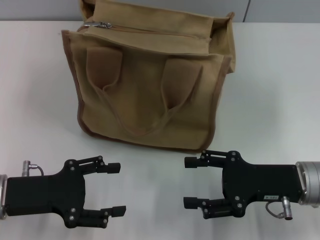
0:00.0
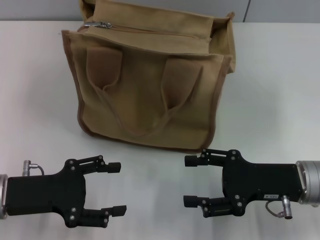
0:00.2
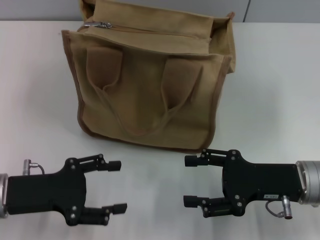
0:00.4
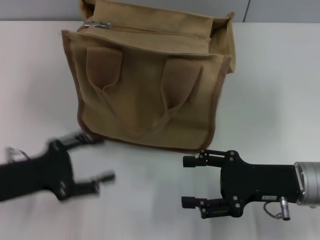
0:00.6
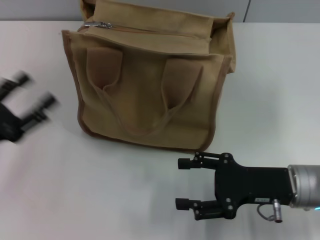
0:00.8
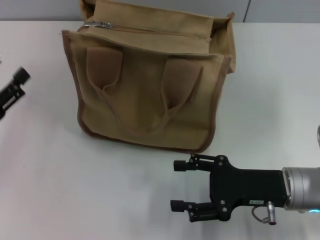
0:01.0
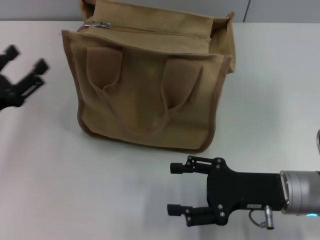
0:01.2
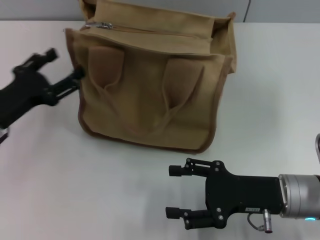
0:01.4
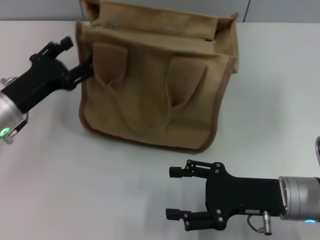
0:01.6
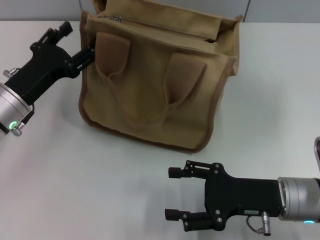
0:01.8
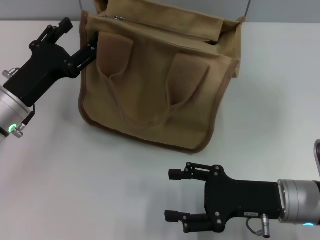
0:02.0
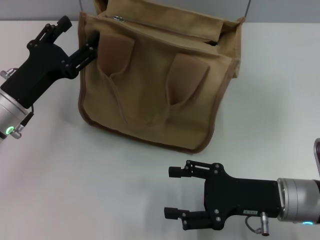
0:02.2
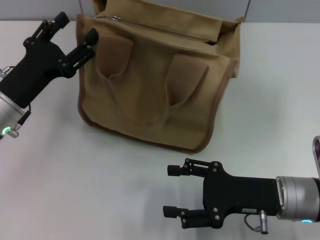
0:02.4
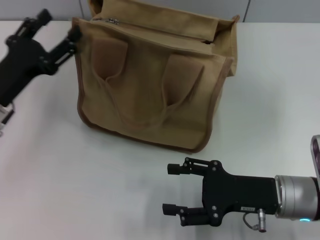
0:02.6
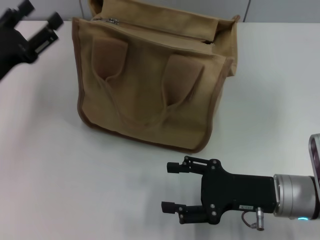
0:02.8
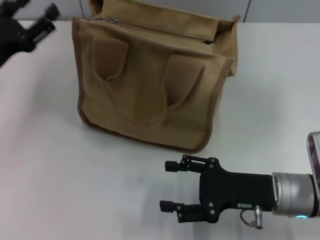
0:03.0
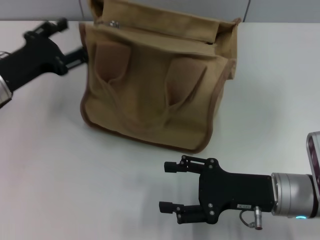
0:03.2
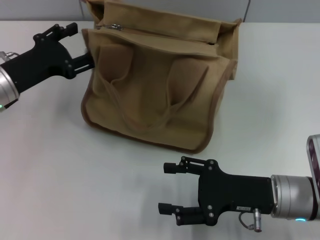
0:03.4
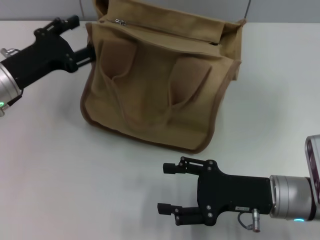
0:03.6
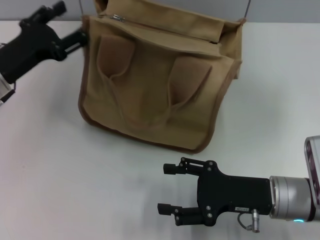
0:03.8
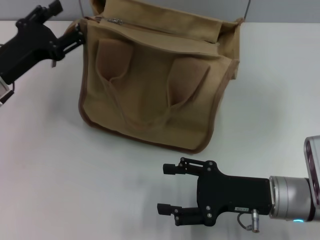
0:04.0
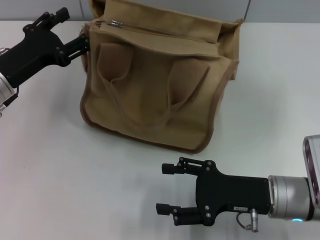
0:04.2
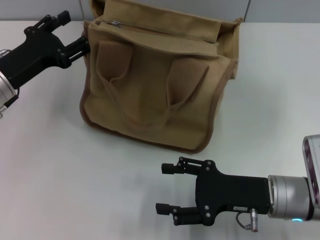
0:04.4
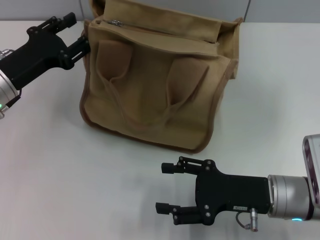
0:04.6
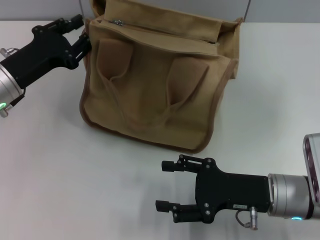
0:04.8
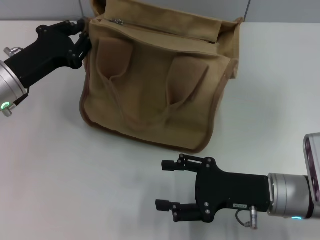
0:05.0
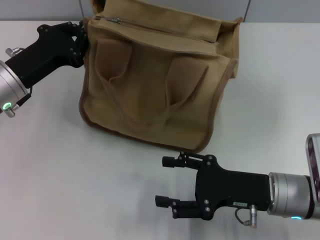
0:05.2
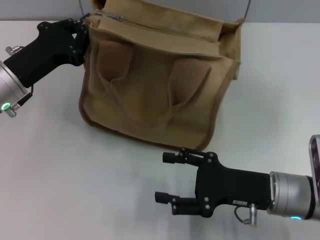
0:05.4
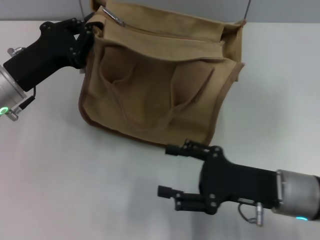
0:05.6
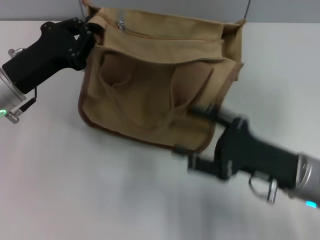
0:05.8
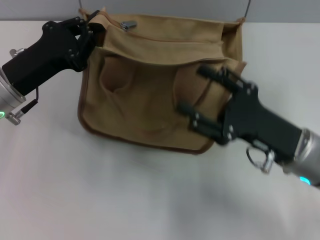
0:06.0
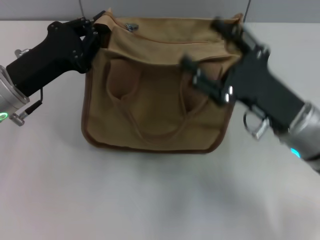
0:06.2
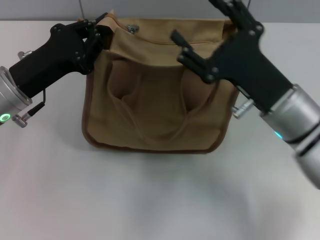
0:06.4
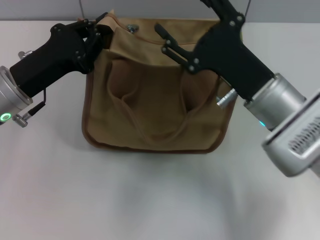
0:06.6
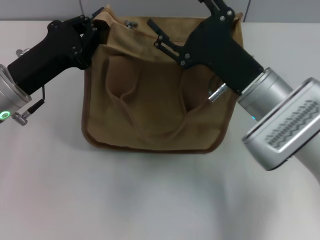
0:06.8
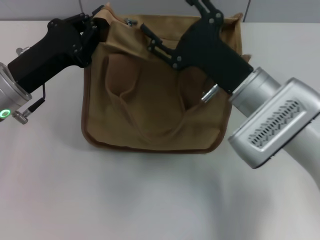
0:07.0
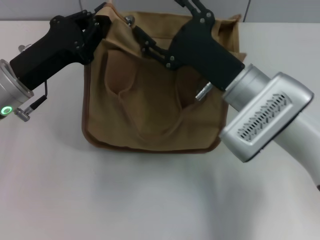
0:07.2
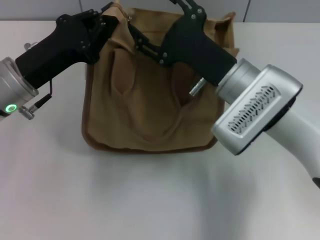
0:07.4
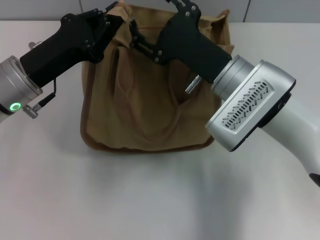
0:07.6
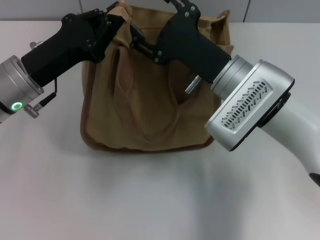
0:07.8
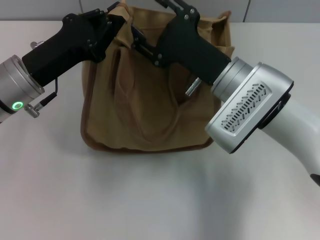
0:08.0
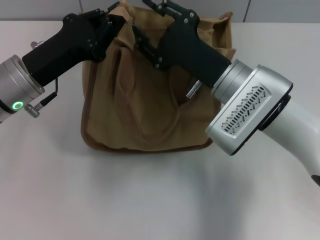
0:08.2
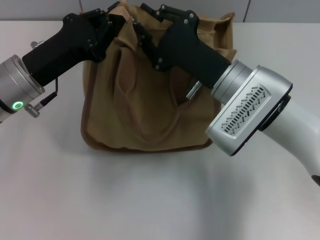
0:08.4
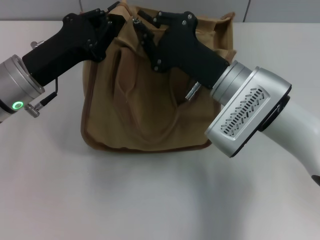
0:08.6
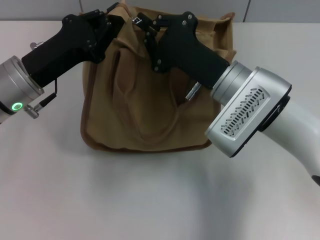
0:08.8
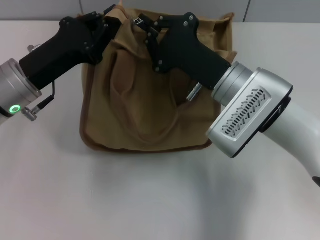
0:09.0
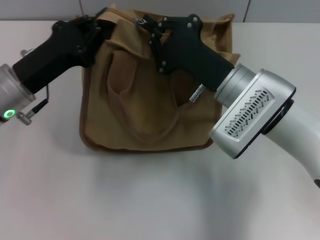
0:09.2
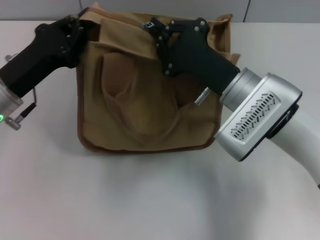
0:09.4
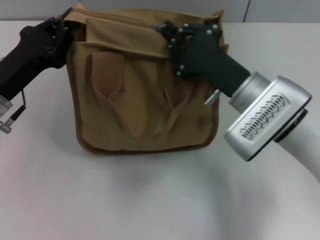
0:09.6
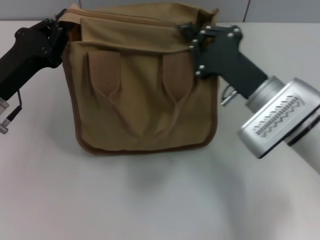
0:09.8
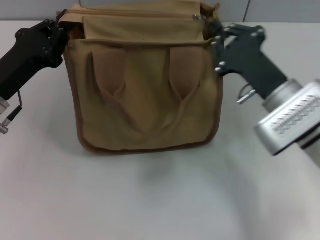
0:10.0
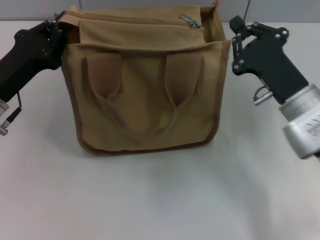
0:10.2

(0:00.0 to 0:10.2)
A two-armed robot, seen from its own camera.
Step, 0:00.0 - 0:10.0: Pull up the zipper with your right hand.
0:00.0 - 0:01.4: The left gripper is displaced forward by approximately 5 cm.
0:01.4 - 0:03.0: The left gripper moves some 5 cm.
0:03.0 - 0:04.4: The grippers stay close to where they were, moving slightly.
0:04.4 - 0:05.8: The left gripper closes up.
0:05.8 - 0:07.2: The right gripper goes roughly 10 cm forward and to the left.
0:07.2 - 0:08.8: The right gripper closes up.
0:08.8 - 0:10.2: The left gripper shifts by some 5 cm; the right gripper moves to the right, some 10 cm.

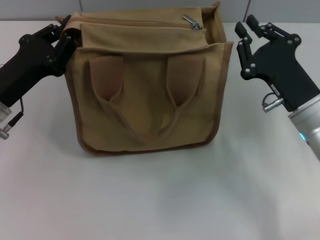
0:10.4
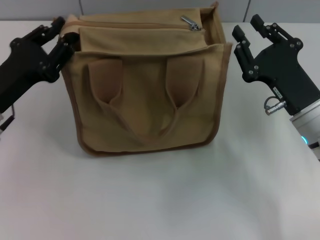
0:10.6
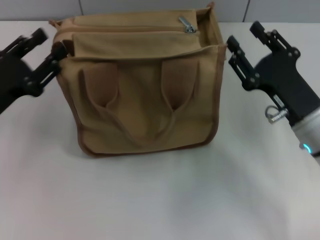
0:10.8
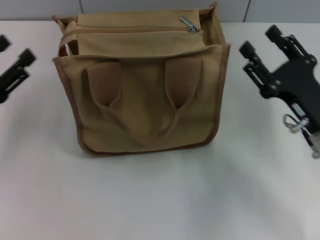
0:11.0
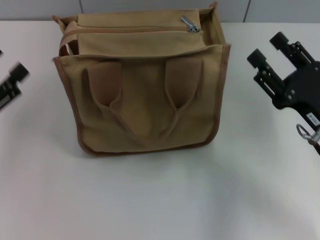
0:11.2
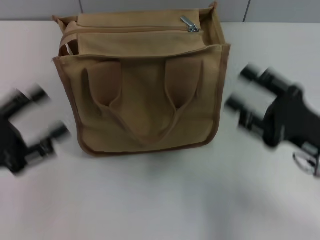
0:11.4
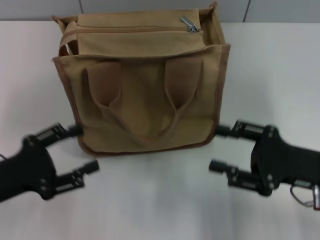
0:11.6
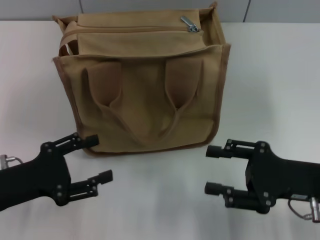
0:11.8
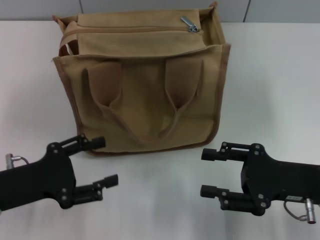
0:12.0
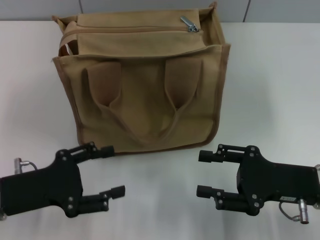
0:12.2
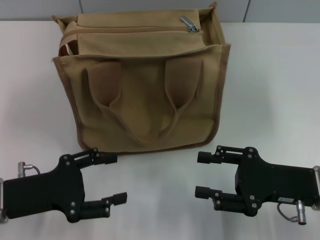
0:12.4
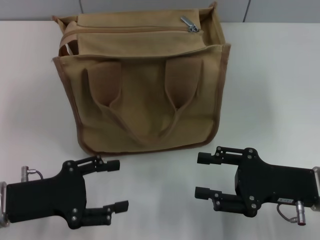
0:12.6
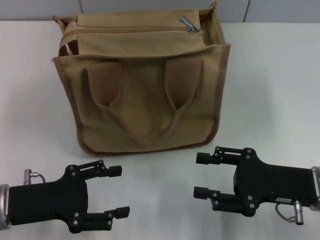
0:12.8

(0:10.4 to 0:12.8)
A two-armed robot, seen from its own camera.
Step, 0:10.4 - 0:10.8: Grab the zipper with your left hand.
0:10.4 - 0:11.6: The left gripper shifts about 10 cm backward, and opens. The right gripper goes roughly 5 cm backward, and opens up.
0:11.6 - 0:12.8: The grippers stay close to where they were, moving slightly.
